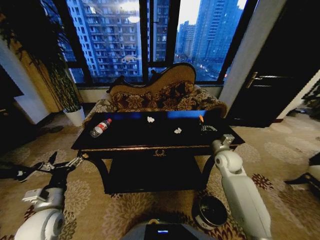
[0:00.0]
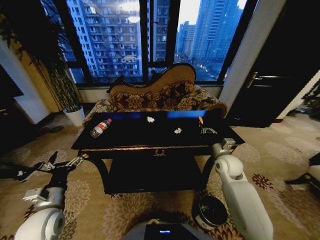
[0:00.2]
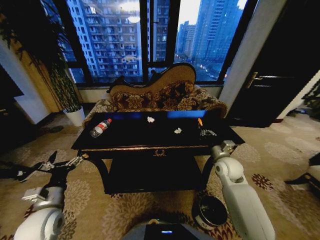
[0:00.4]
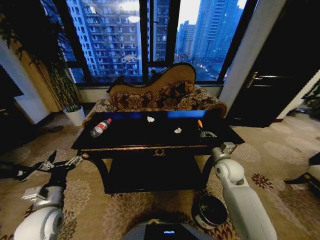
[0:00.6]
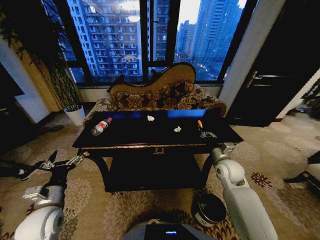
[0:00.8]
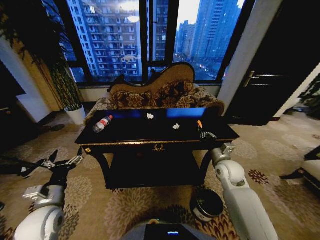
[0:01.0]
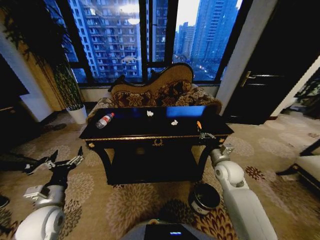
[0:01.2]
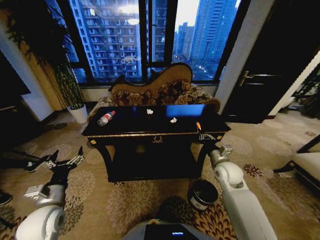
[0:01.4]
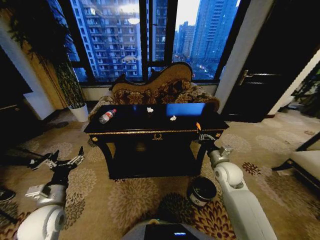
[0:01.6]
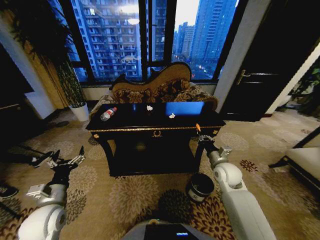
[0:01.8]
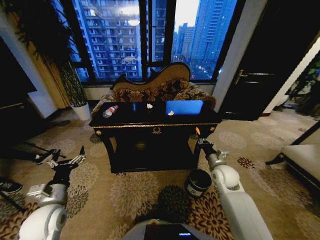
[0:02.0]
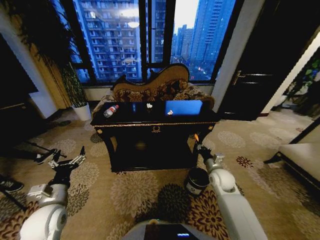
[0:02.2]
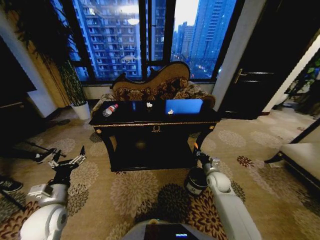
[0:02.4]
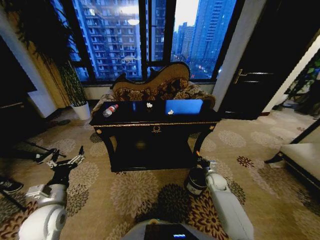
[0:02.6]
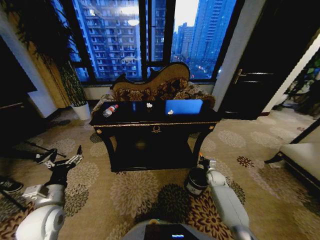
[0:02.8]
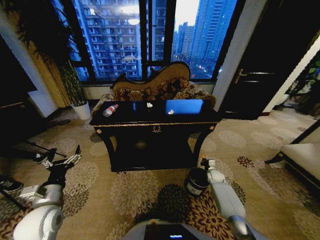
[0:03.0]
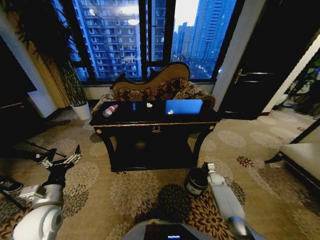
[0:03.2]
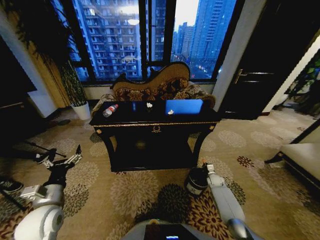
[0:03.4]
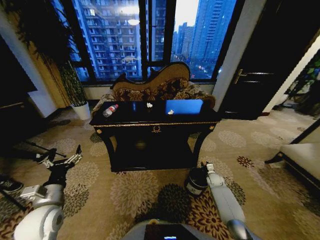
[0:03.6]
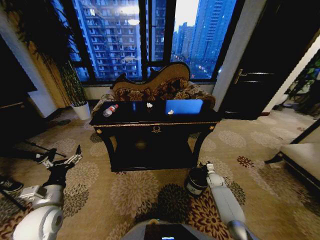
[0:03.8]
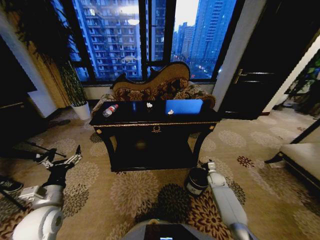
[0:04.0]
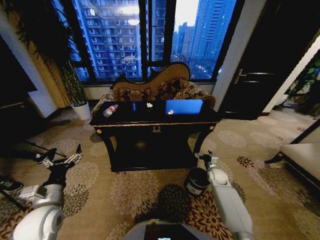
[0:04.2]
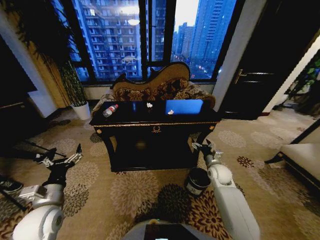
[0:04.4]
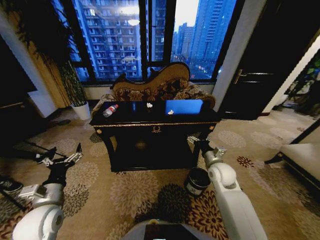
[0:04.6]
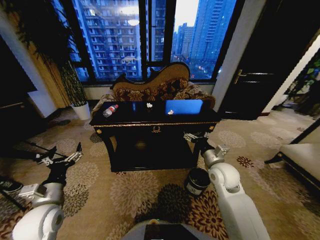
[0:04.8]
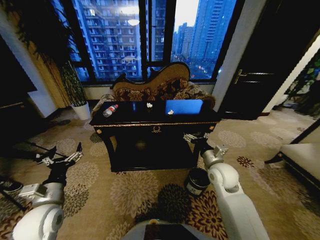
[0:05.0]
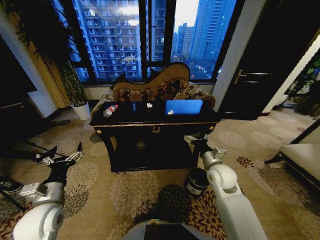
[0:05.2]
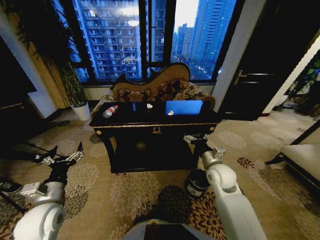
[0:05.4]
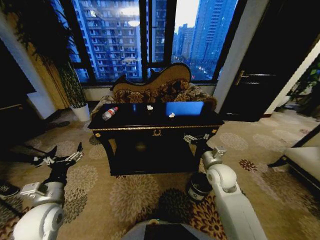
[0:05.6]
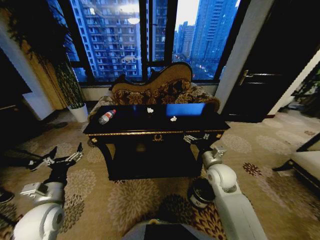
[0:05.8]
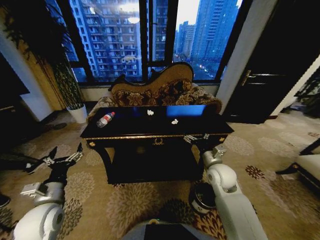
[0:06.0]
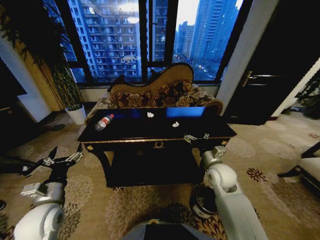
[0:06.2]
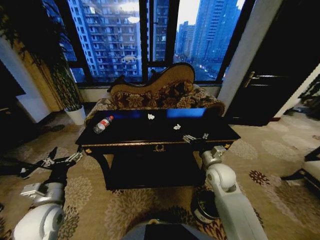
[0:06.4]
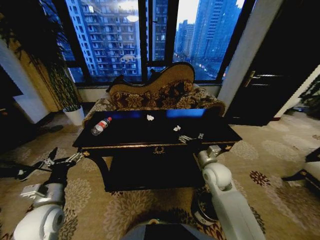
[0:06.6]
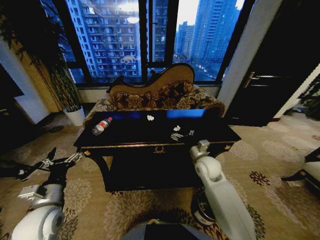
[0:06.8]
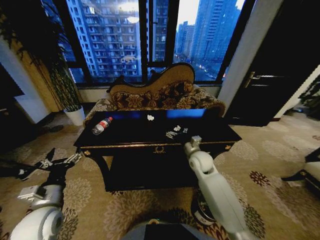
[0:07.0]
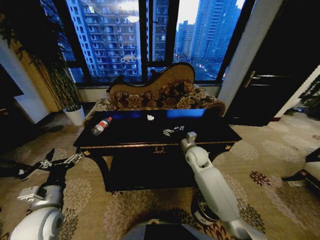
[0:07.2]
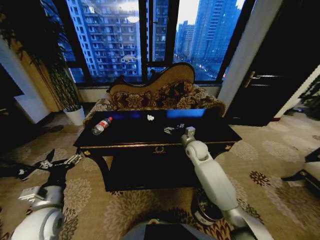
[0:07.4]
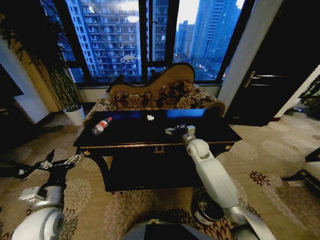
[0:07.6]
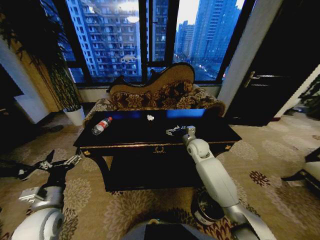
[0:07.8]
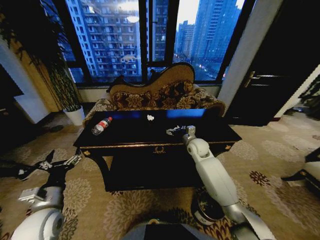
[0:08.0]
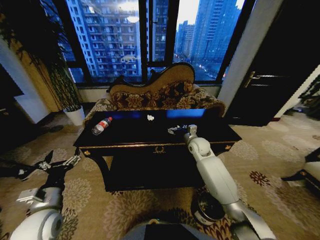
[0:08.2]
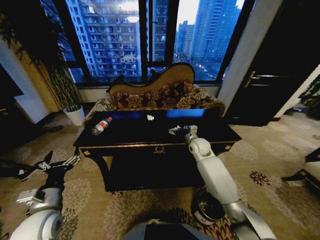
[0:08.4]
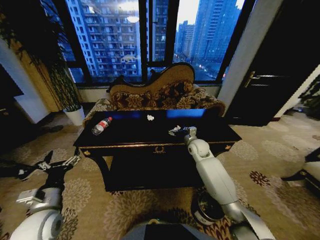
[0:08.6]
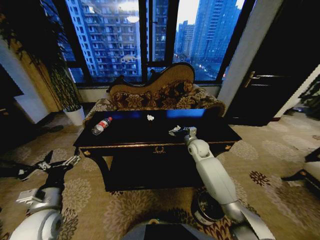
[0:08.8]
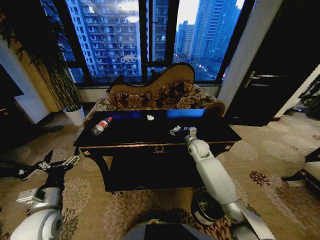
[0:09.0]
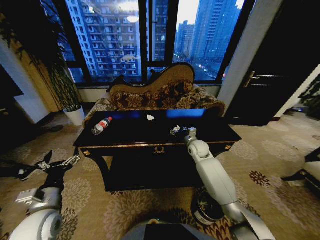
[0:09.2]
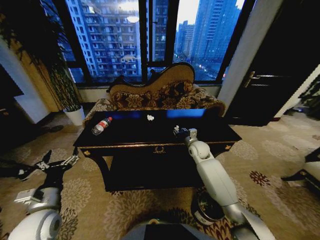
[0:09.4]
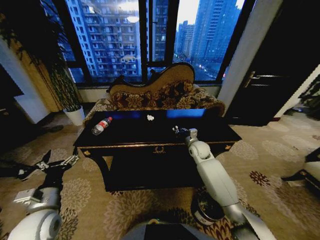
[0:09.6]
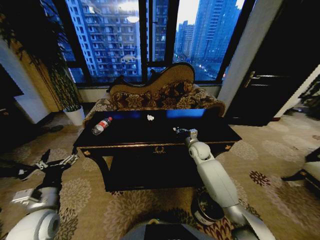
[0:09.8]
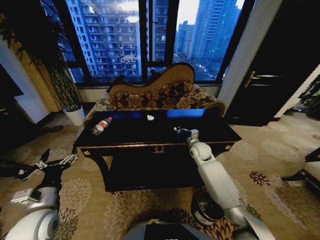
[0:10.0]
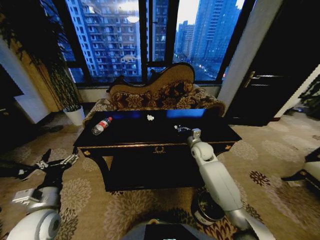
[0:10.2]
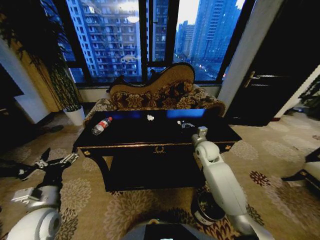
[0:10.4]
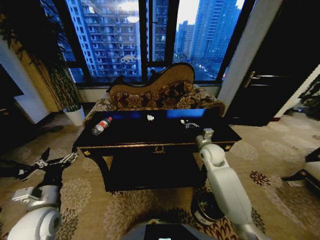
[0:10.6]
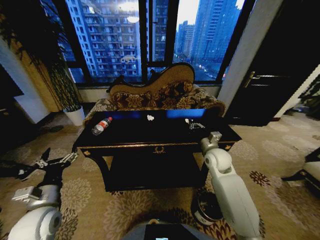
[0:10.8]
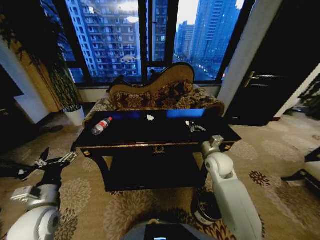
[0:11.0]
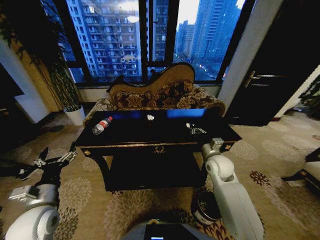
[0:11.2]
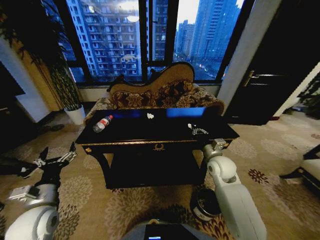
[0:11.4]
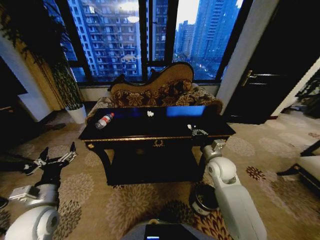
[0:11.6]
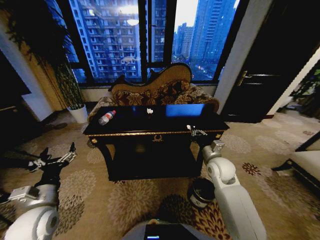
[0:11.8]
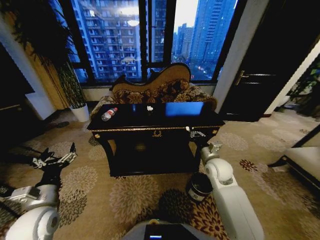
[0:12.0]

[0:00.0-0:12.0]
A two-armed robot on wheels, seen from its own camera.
Task of the whole recording: Move to the front of the table and place the trash on the table into the trash bin.
0:00.0 to 0:01.6: The right gripper moves backward, approximately 5 cm.
0:01.6 to 0:03.0: The right gripper travels downward by roughly 25 cm.
0:03.0 to 0:04.4: The right gripper is displaced upward and to the left by roughly 15 cm, and opens.
0:04.4 to 0:06.0: The right gripper shifts some 15 cm upward, to the left and backward.
0:06.0 to 0:07.6: The right gripper travels forward by about 15 cm.
0:07.6 to 0:09.0: The grippers stay close to where they were, moving slightly.
0:09.0 to 0:10.4: The right gripper shifts by some 5 cm, and closes.
0:10.4 to 0:12.0: The right gripper heads backward, covering some 10 cm.

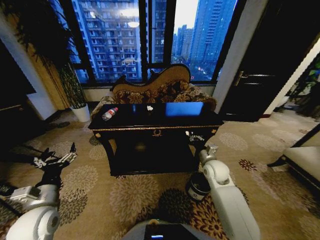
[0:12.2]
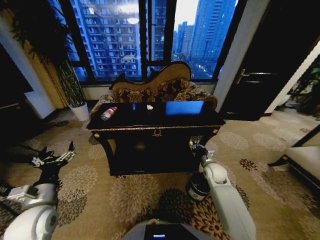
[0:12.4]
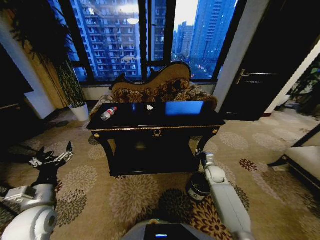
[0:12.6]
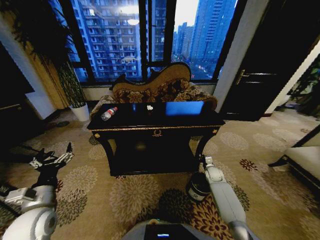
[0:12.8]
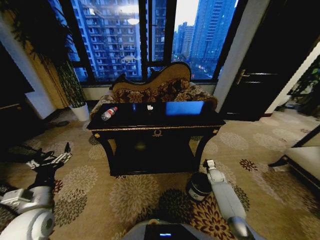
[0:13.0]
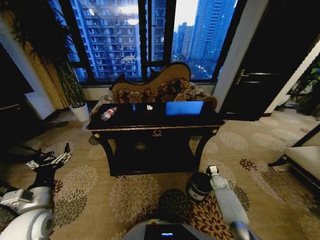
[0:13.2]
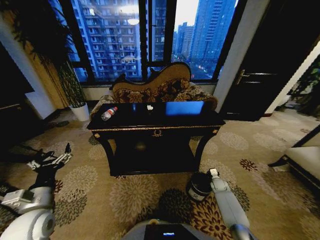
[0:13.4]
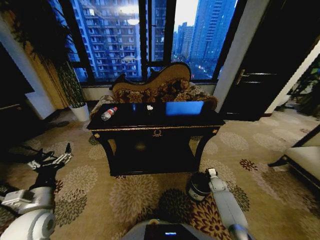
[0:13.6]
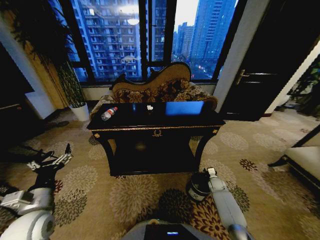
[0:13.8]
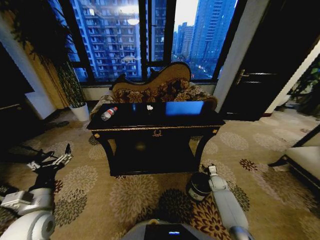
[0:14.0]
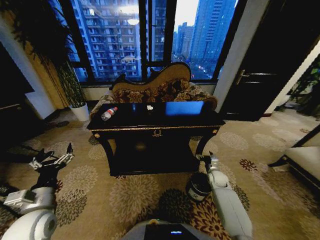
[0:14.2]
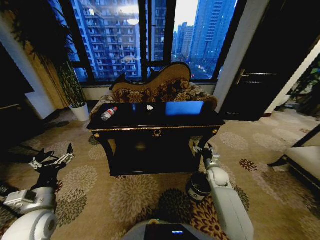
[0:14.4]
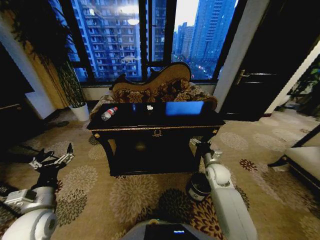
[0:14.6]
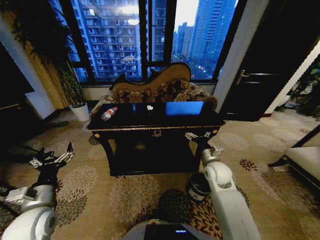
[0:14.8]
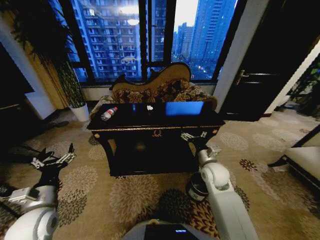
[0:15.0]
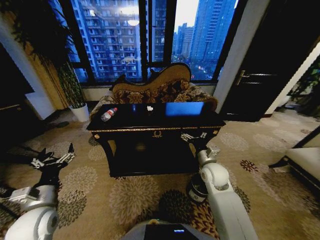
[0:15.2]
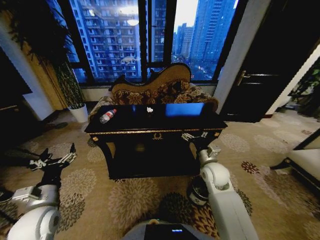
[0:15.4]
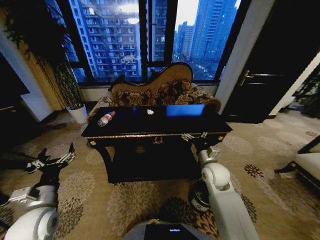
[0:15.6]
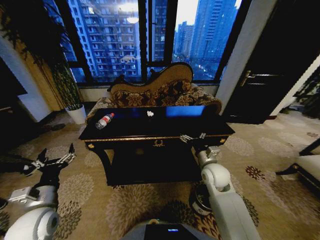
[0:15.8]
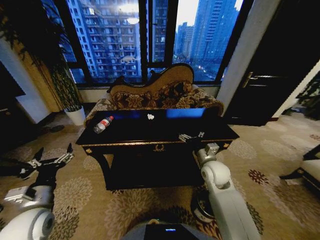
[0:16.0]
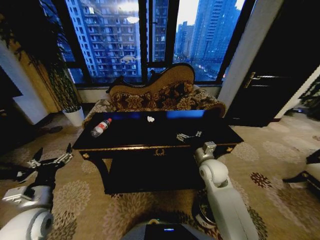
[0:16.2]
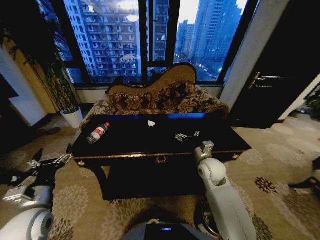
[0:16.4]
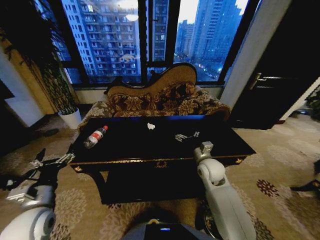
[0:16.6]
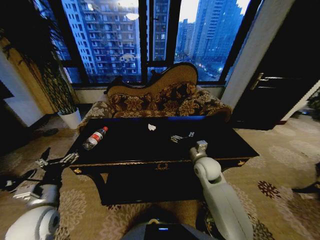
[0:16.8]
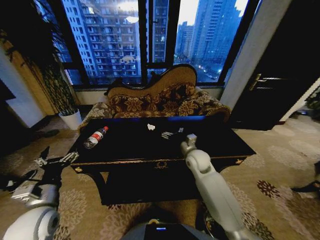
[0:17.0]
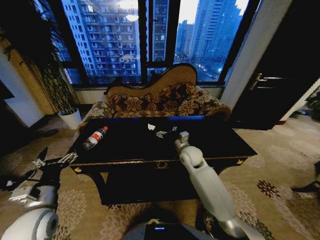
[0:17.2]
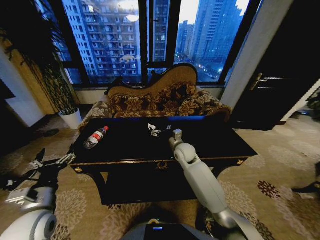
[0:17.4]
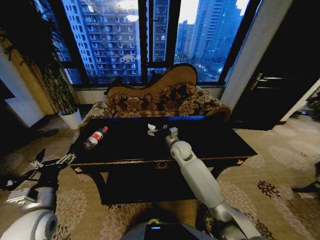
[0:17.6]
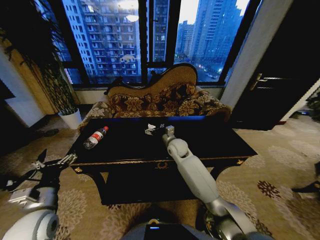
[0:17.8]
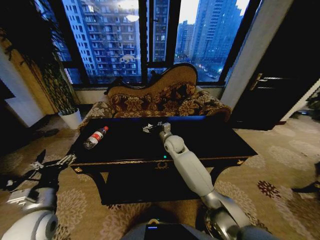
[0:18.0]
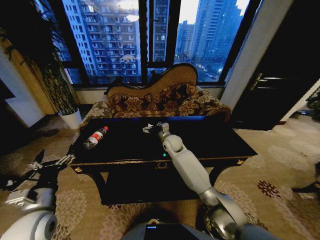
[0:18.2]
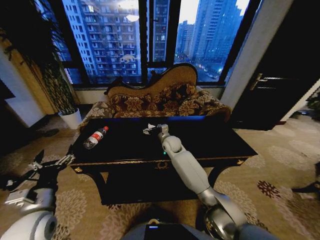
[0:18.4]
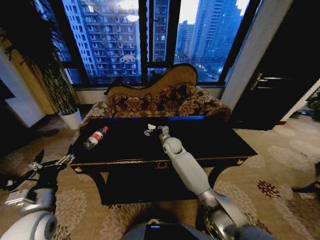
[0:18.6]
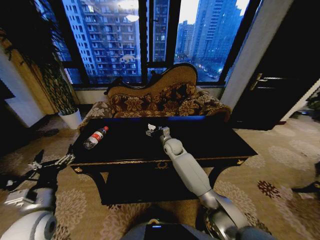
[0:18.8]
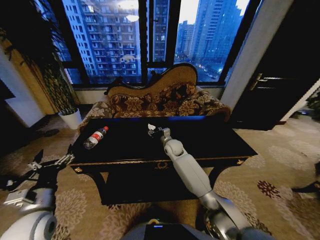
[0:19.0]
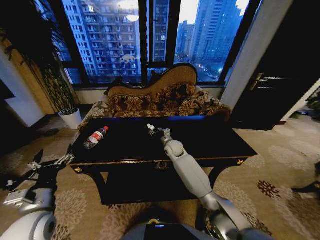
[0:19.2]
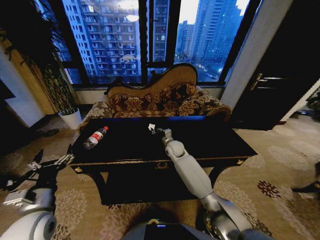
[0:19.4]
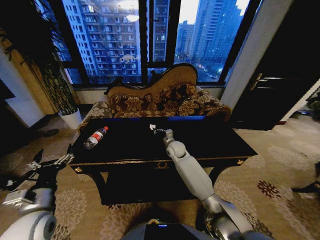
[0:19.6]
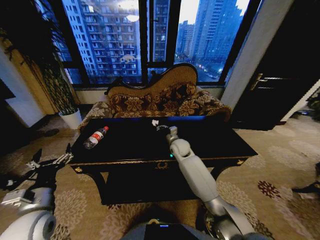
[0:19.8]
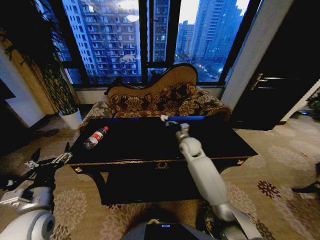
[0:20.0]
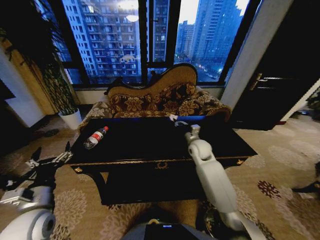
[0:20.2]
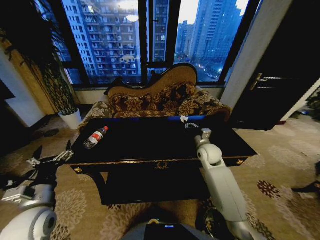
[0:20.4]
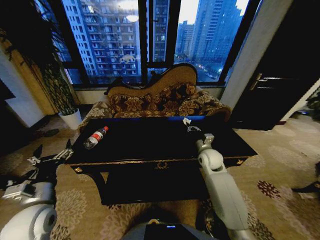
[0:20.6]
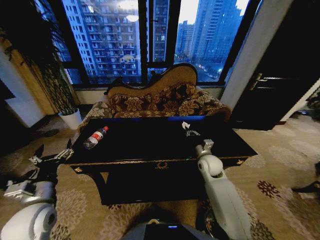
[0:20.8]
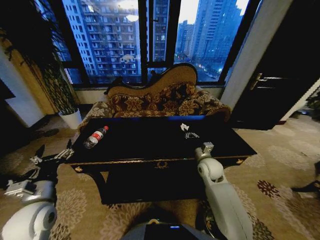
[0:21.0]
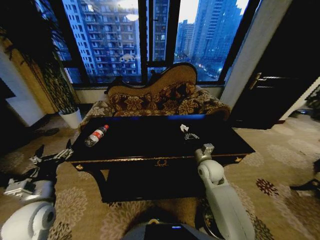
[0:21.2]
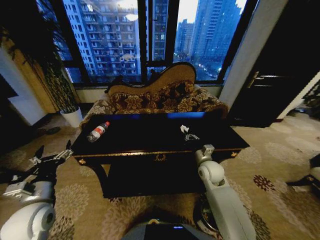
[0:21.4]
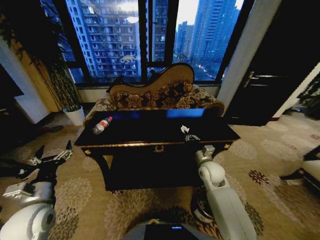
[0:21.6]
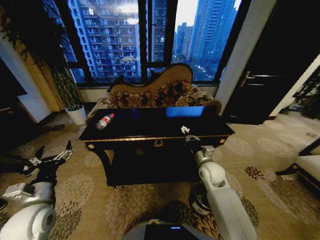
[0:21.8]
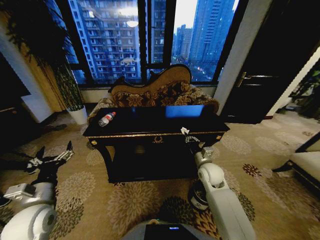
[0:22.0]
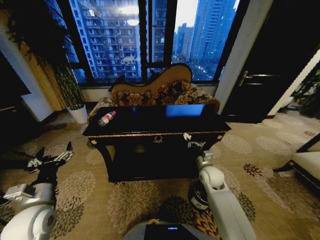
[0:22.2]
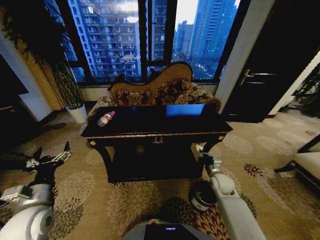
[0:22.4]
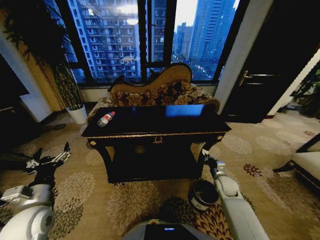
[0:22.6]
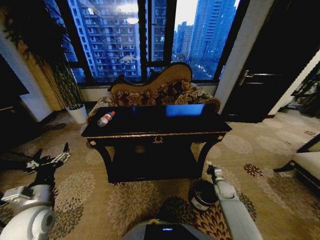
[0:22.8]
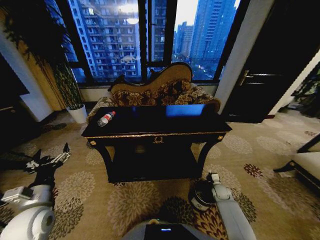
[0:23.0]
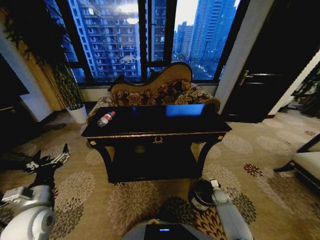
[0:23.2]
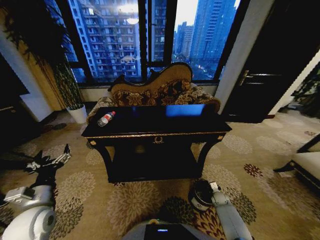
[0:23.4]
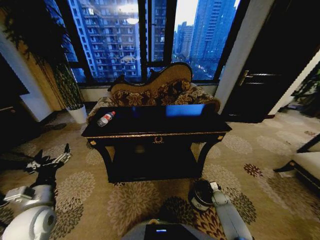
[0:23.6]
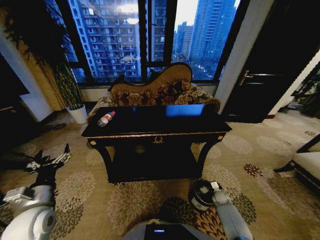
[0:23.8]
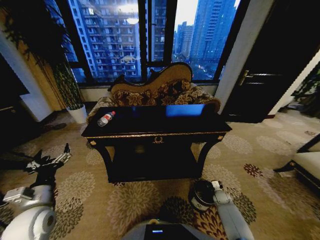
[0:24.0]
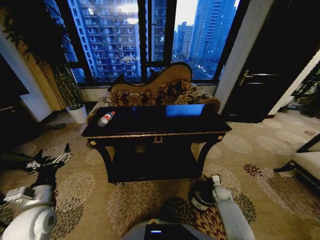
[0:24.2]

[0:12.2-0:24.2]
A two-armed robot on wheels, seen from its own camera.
Task of the whole recording: Move to the front of the table and place the trash on the table into the trash bin.
0:12.2 to 0:13.8: The right gripper is displaced downward and to the right by approximately 25 cm, and opens.
0:13.8 to 0:15.2: The right gripper travels upward and to the left by about 30 cm, and opens up.
0:16.6 to 0:18.2: The right gripper heads forward and to the left, covering roughly 20 cm.
0:18.2 to 0:19.8: The right gripper closes its fingers.
0:19.8 to 0:21.2: The right gripper goes about 15 cm backward and to the right.
0:21.2 to 0:22.6: The right gripper shifts about 20 cm downward and to the right.
0:22.6 to 0:24.2: The right gripper heads downward, covering approximately 10 cm, and opens its fingers.
